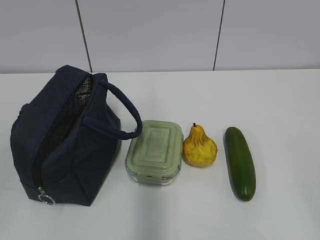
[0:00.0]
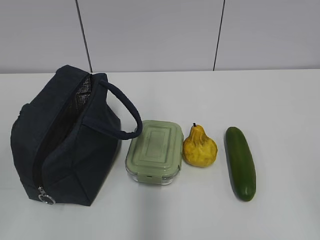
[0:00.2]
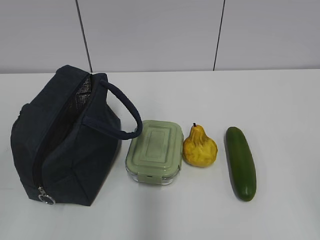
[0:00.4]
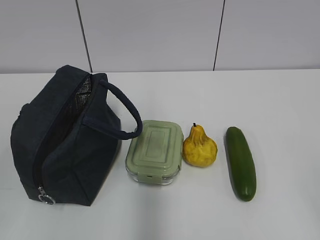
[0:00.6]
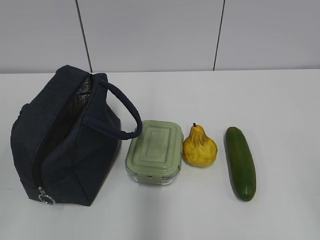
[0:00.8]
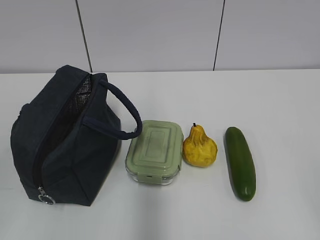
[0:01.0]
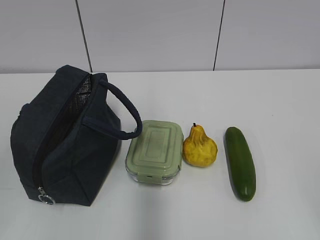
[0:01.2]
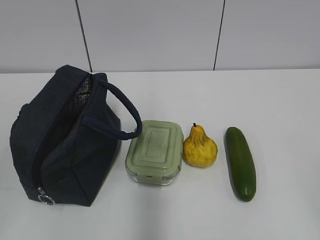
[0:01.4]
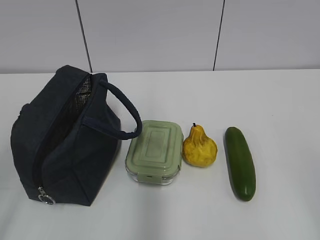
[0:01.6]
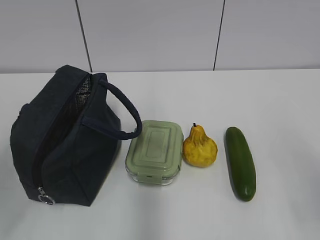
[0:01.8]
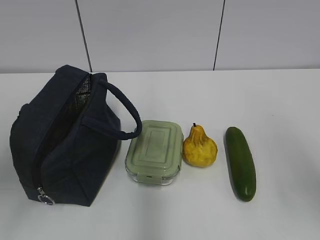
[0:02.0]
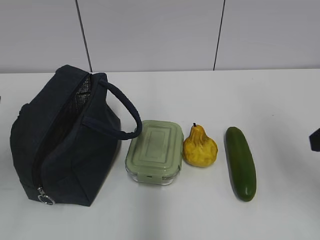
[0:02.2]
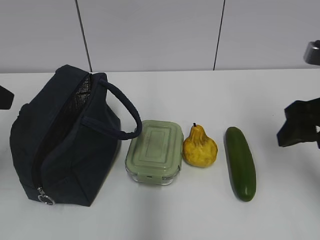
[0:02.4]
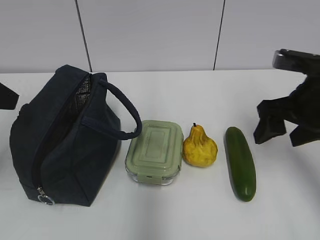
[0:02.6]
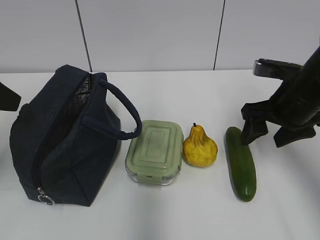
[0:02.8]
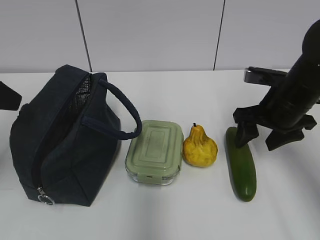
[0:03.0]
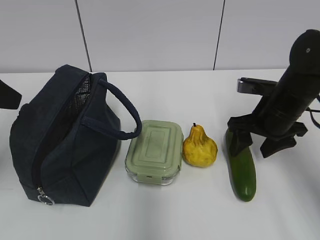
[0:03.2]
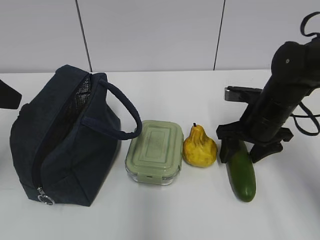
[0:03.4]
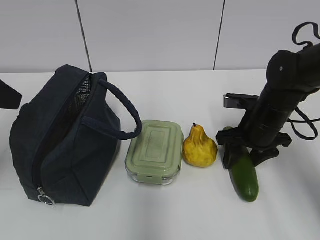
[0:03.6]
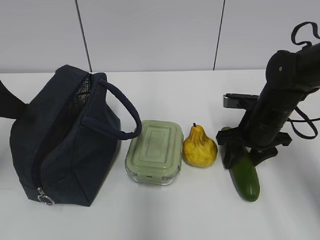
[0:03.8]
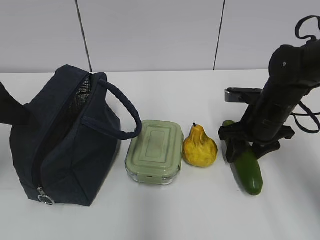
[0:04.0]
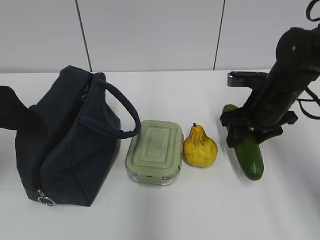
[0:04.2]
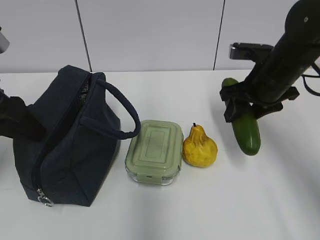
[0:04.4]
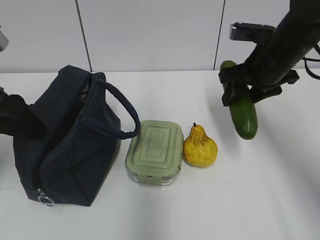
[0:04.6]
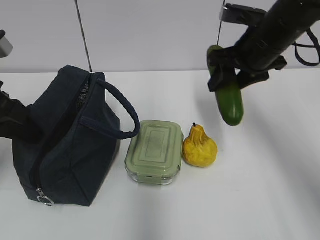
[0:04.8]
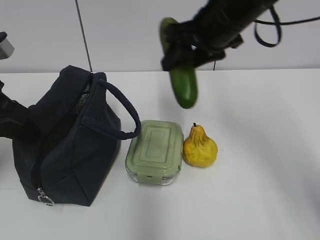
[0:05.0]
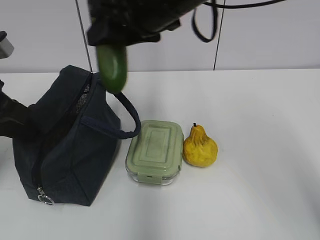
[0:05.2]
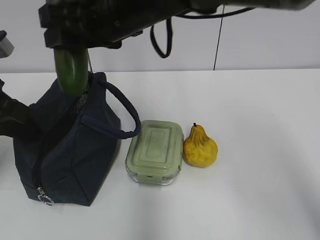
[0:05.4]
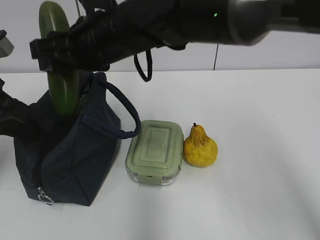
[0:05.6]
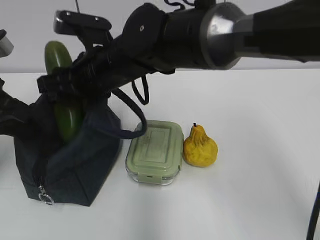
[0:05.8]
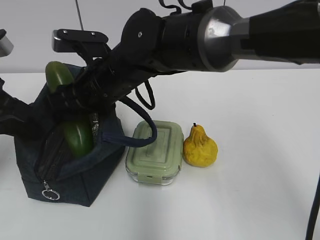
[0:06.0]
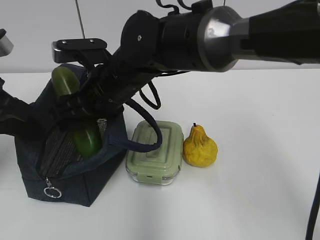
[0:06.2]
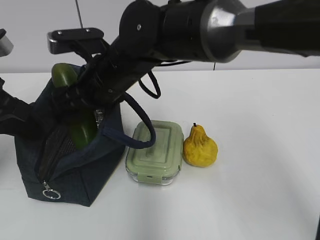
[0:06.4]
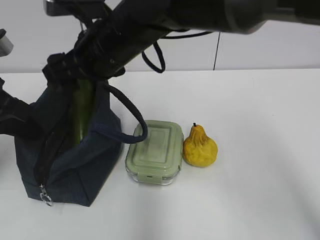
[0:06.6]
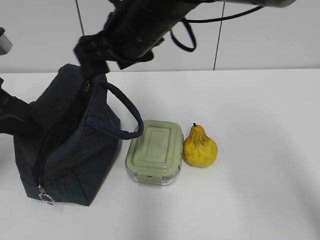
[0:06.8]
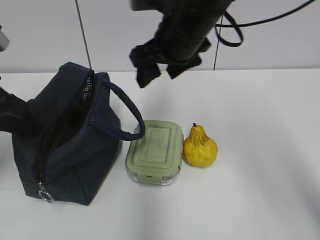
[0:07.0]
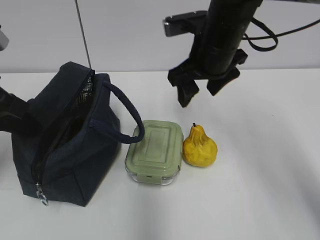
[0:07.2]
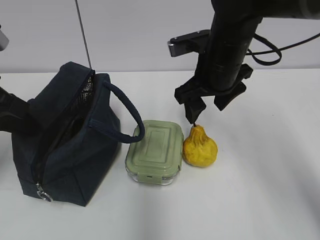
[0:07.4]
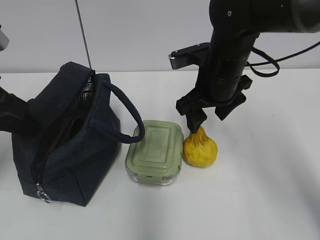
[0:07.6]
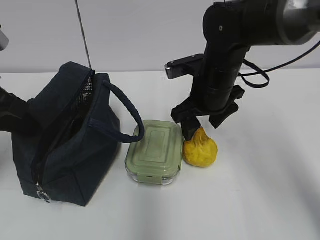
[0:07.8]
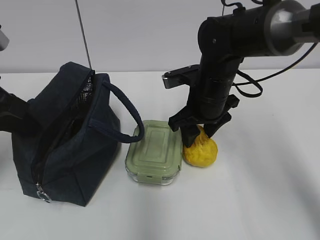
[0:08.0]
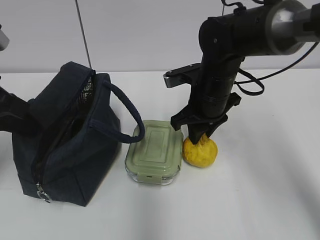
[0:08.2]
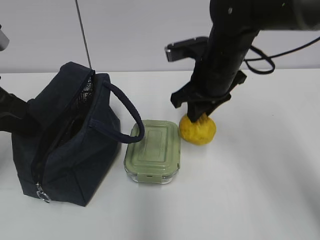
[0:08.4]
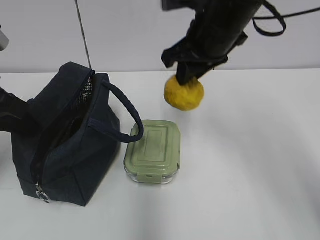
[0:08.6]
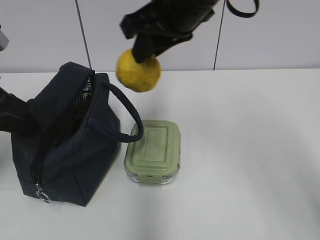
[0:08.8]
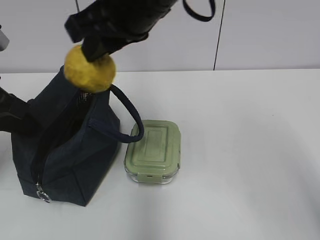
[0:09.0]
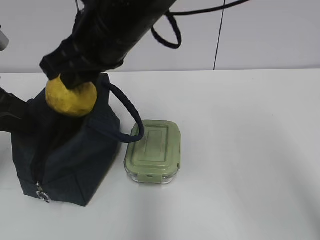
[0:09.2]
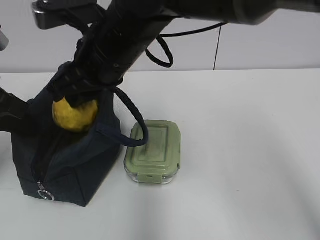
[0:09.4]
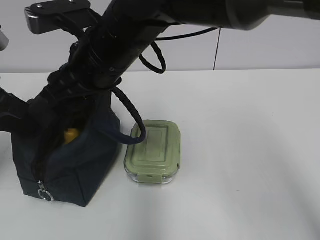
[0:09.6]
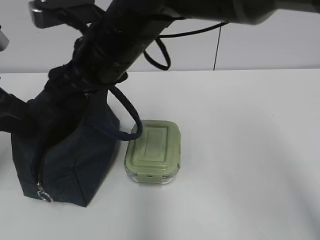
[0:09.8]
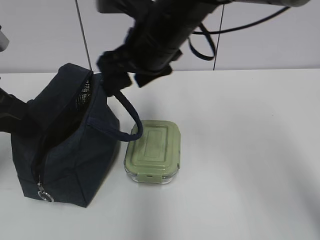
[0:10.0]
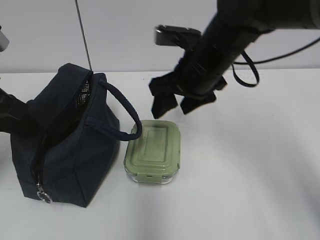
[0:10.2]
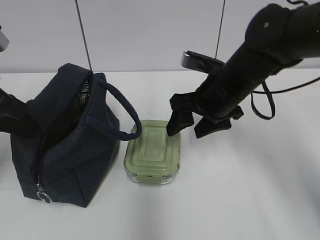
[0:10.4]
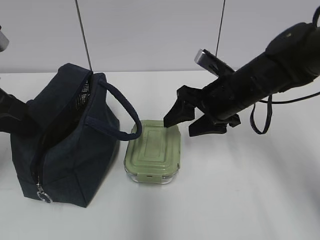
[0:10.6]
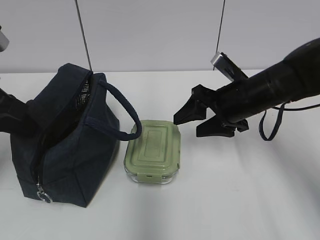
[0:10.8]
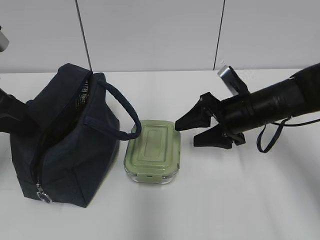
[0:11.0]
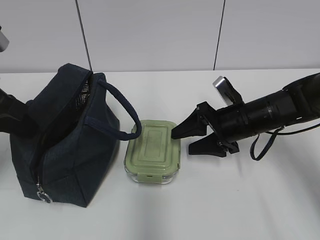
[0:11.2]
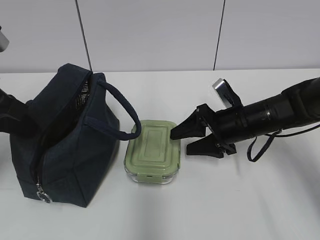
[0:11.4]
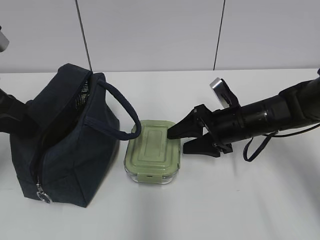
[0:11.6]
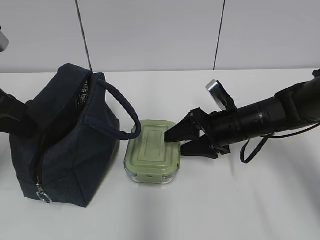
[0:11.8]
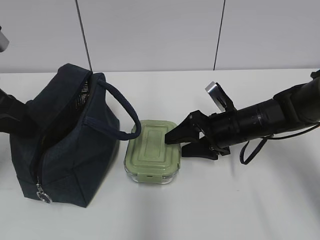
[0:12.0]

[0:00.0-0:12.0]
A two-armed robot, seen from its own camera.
0:01.6 to 0:03.0: The left gripper goes some 20 cm forward. The right gripper moves forward, about 30 cm.
0:03.0 to 0:04.4: The left gripper moves approximately 5 cm; the right gripper changes place by about 5 cm.
0:04.4 to 0:06.0: The right gripper shifts some 25 cm to the left, while the left gripper closes its fingers.
0:06.0 to 0:07.6: The right gripper goes some 15 cm to the right.
0:07.6 to 0:09.0: The right gripper goes some 20 cm upward, to the left and backward, and closes its fingers.
0:09.0 to 0:10.4: The right gripper shifts about 20 cm downward and to the right, and opens.
0:10.4 to 0:12.0: The right gripper heads downward, covering some 10 cm.

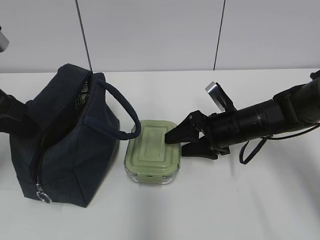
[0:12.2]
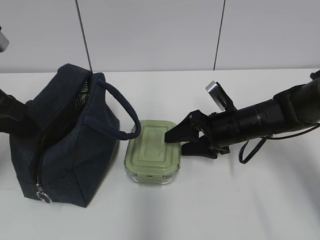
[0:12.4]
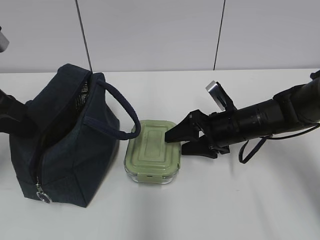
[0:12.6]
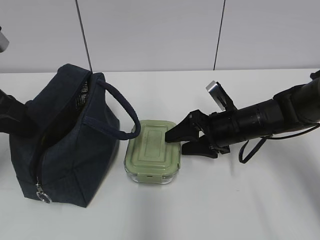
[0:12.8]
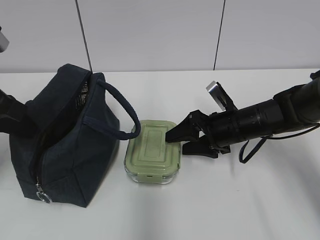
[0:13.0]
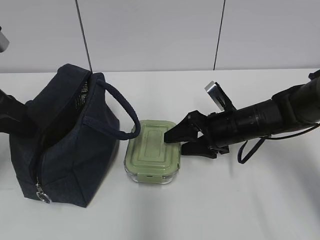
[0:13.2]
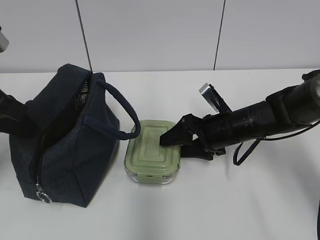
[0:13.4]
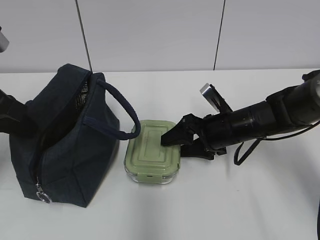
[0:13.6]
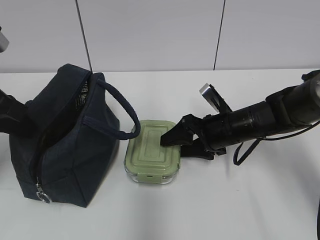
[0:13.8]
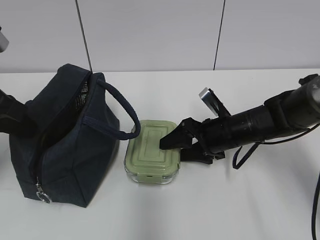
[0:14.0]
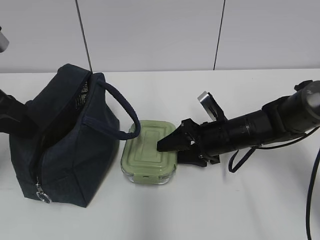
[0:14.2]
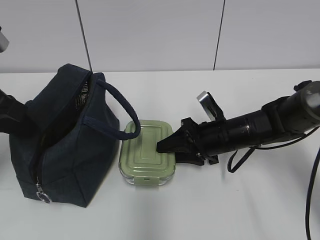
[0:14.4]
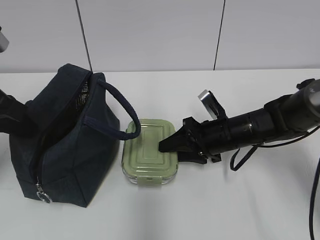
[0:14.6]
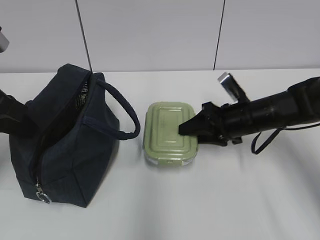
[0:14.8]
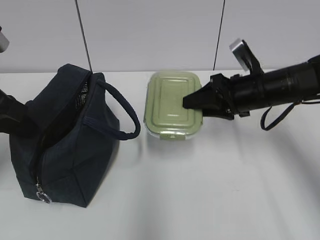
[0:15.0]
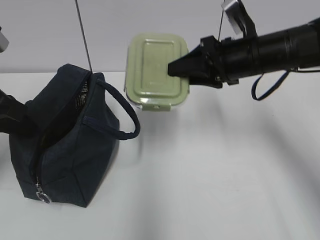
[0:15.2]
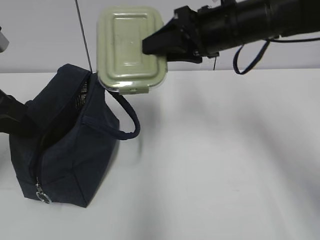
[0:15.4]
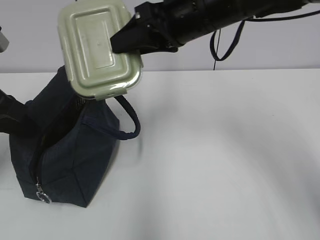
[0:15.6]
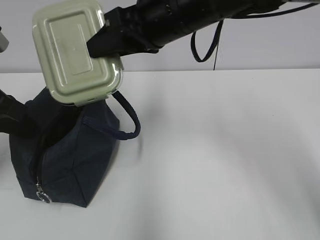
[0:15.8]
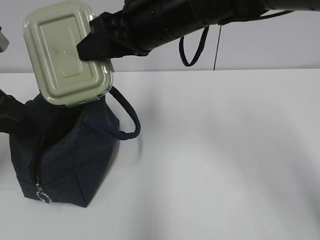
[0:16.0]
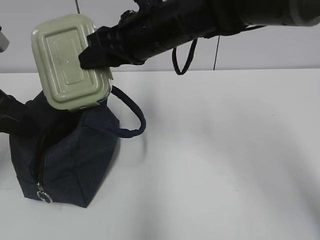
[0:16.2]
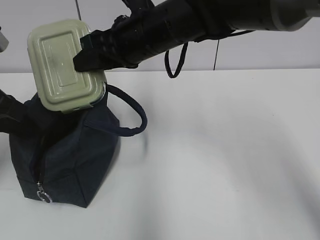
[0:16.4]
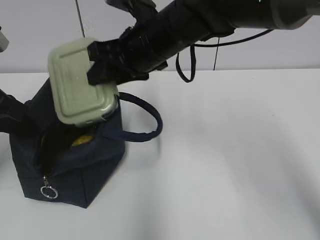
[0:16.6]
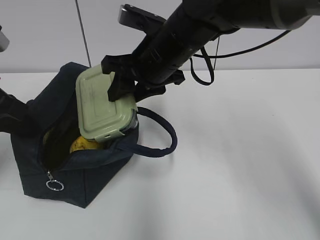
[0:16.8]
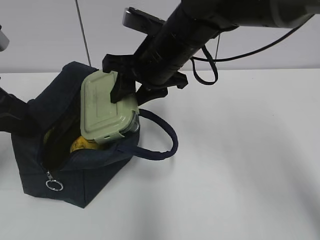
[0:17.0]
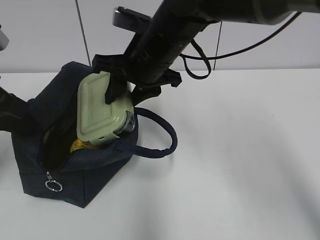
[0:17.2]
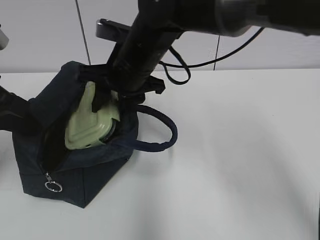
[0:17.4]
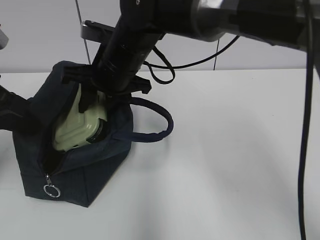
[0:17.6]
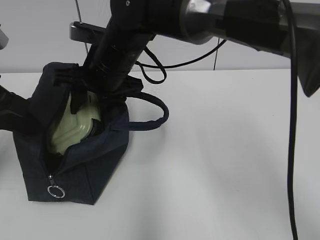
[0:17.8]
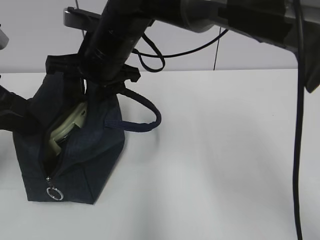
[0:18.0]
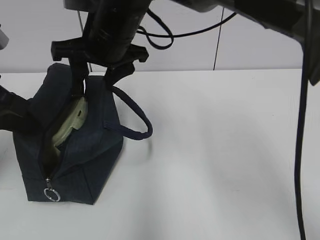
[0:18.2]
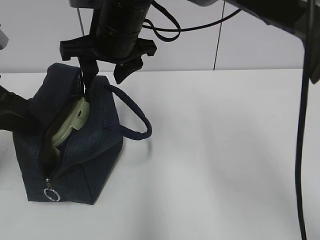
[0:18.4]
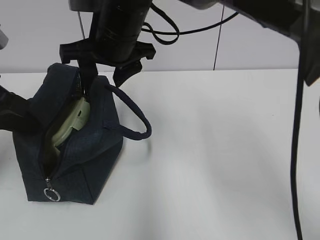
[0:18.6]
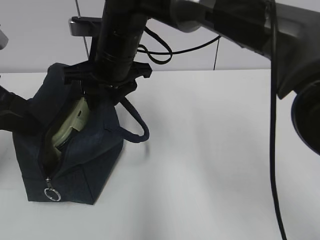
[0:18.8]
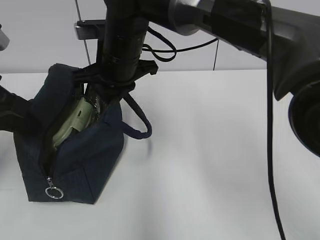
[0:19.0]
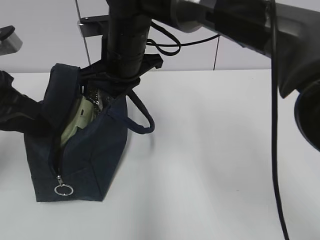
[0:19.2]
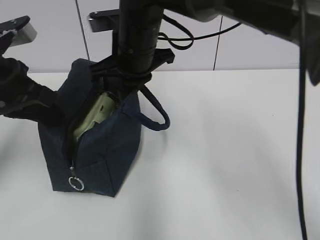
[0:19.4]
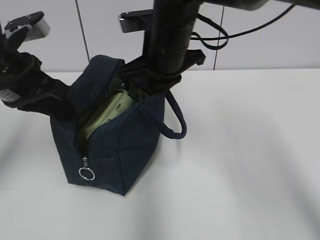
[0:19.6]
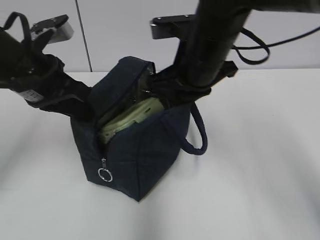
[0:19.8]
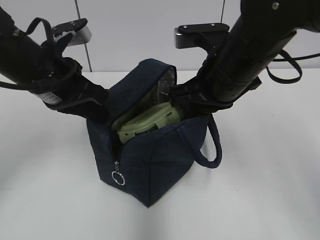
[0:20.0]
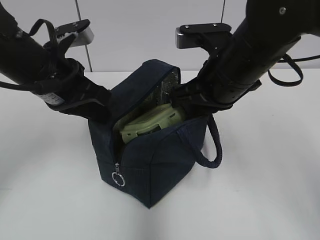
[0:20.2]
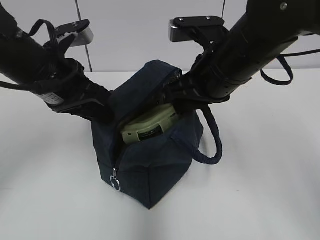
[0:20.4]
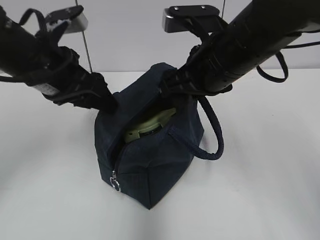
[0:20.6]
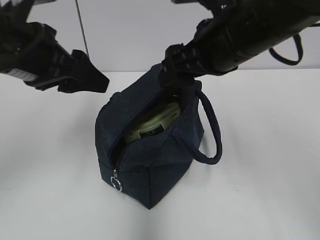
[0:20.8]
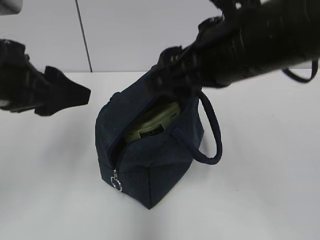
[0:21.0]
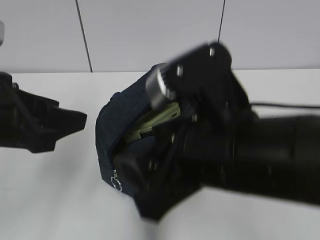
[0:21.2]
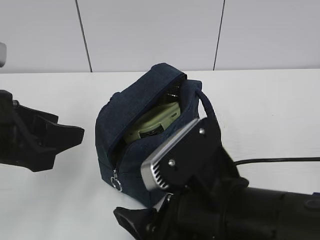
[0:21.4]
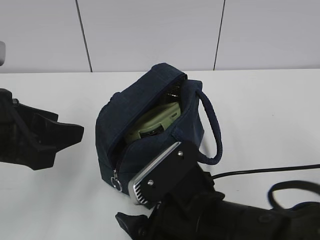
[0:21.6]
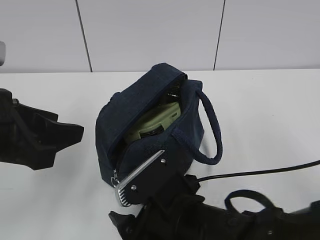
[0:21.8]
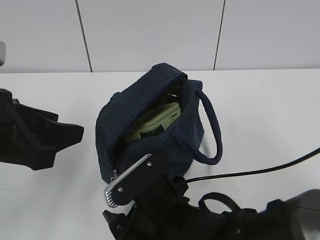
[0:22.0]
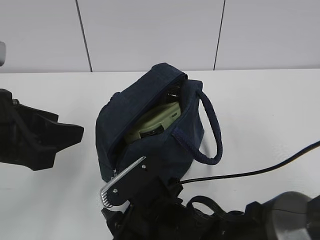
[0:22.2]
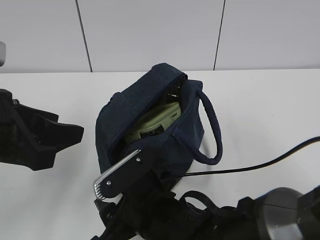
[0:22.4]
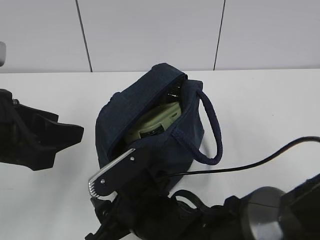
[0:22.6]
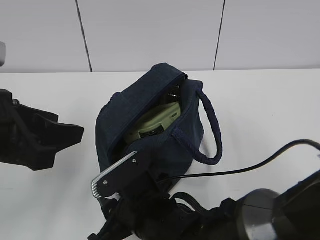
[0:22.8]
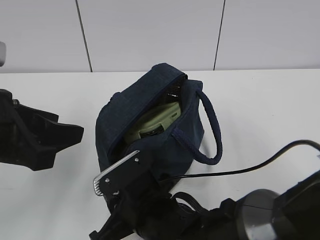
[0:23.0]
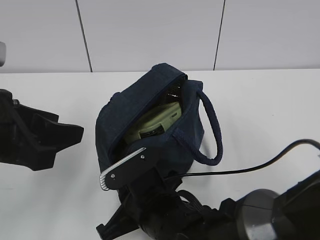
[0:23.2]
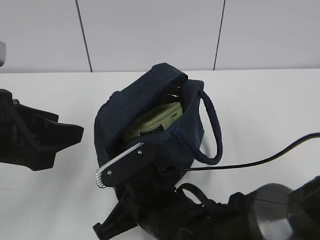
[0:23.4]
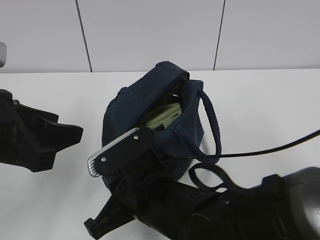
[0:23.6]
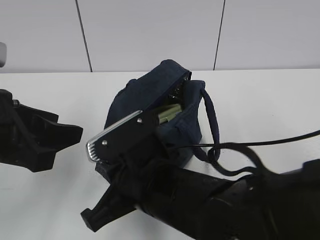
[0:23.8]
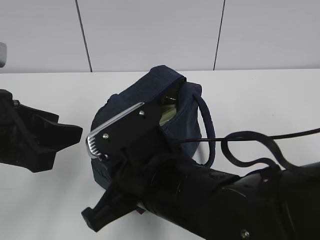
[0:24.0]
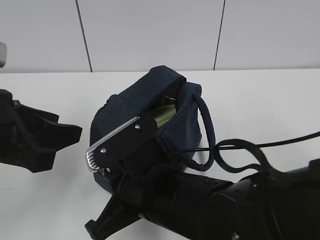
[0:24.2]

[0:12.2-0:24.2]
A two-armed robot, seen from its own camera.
0:12.2 to 0:13.8: Neither gripper changes place.
0:13.8 to 0:15.2: The right gripper heads upward, covering approximately 15 cm, and closes its fingers.
0:15.2 to 0:16.6: The right gripper goes about 15 cm to the left.
0:16.6 to 0:18.2: The right gripper moves to the left, about 5 cm.
0:18.2 to 0:19.8: The right gripper moves to the right, about 10 cm, and closes up. The left gripper moves to the right, about 5 cm.
0:19.8 to 0:21.2: The two grippers go approximately 15 cm backward. The right gripper opens its fingers, while the left gripper opens up.
0:21.2 to 0:22.6: The right gripper shifts about 20 cm downward and to the left.
0:22.6 to 0:24.2: The right gripper goes about 5 cm upward, and closes its fingers.
